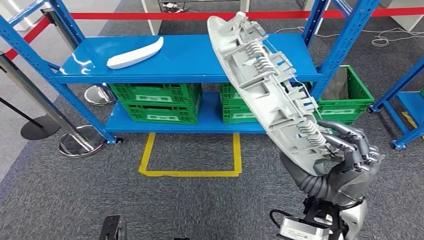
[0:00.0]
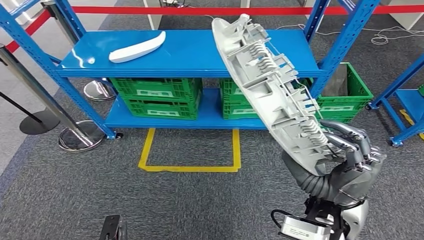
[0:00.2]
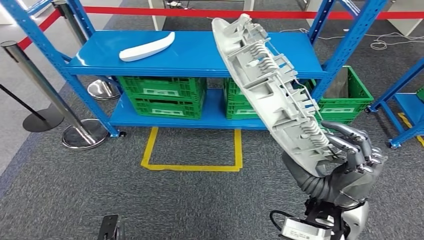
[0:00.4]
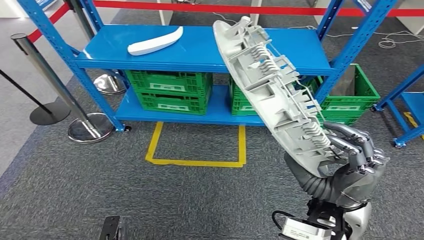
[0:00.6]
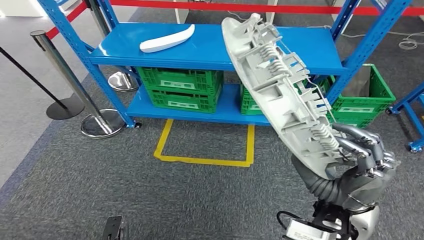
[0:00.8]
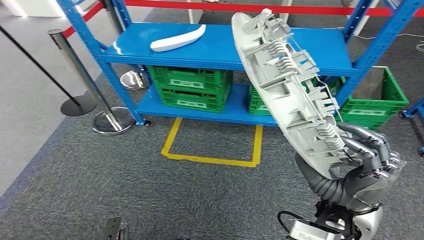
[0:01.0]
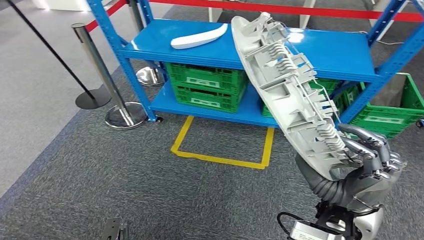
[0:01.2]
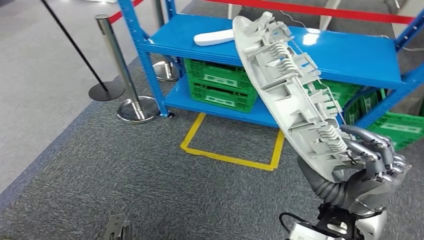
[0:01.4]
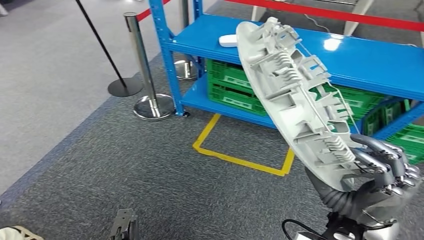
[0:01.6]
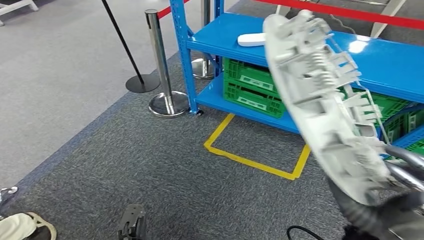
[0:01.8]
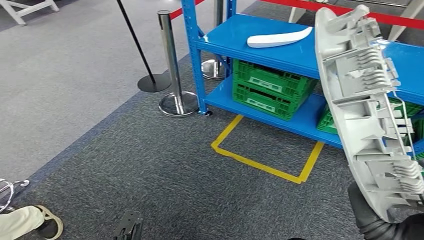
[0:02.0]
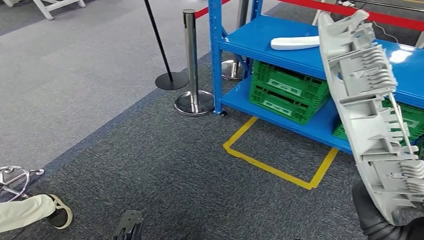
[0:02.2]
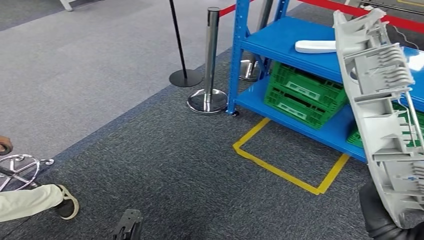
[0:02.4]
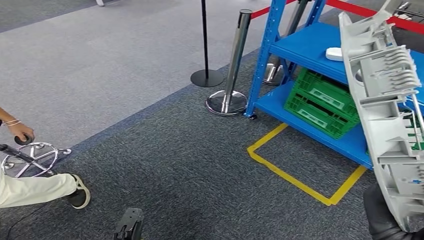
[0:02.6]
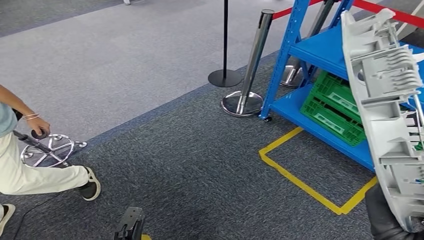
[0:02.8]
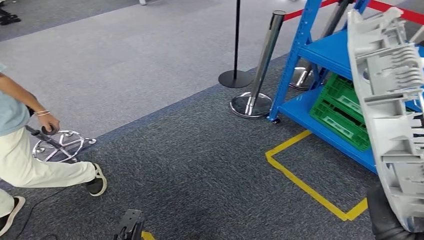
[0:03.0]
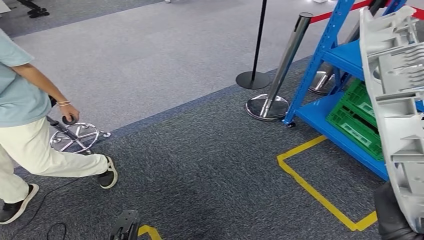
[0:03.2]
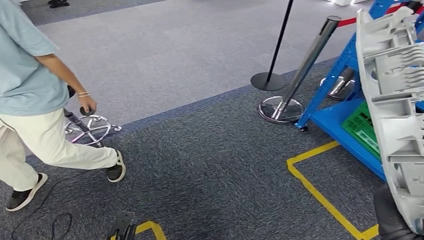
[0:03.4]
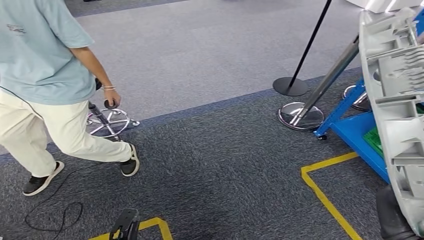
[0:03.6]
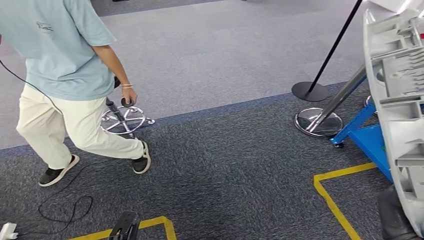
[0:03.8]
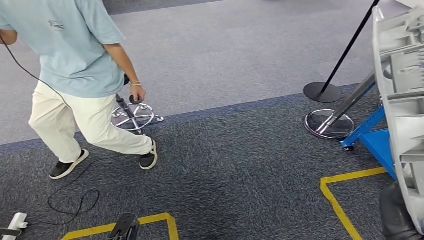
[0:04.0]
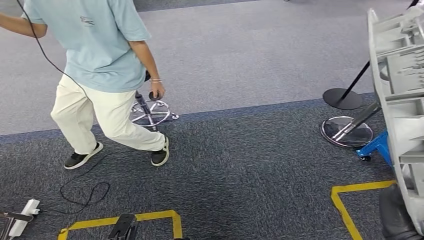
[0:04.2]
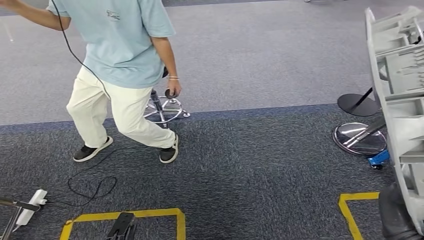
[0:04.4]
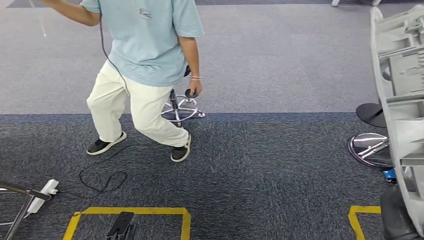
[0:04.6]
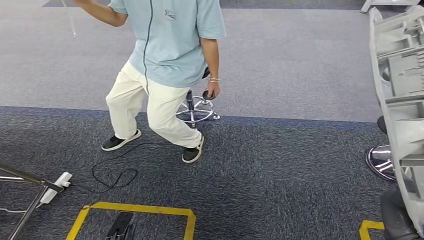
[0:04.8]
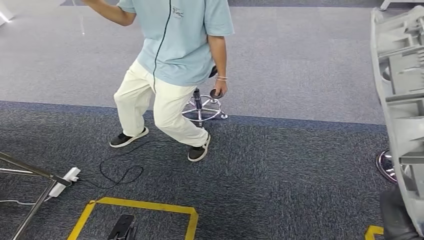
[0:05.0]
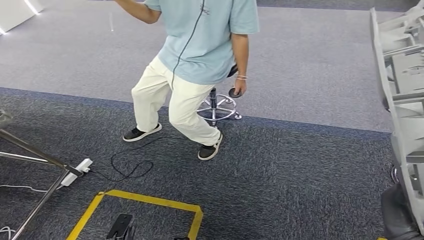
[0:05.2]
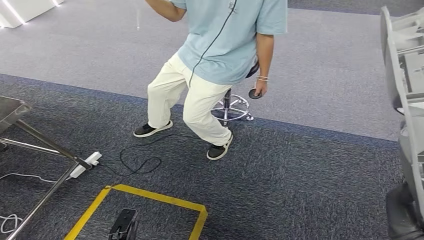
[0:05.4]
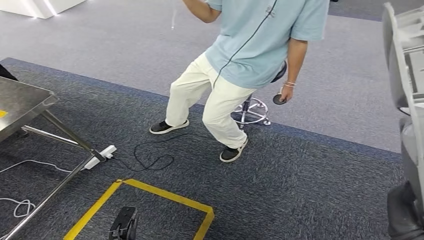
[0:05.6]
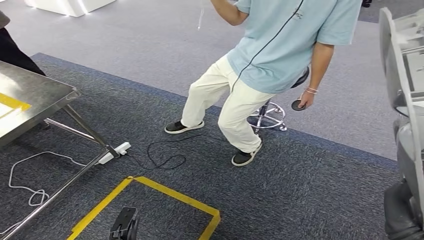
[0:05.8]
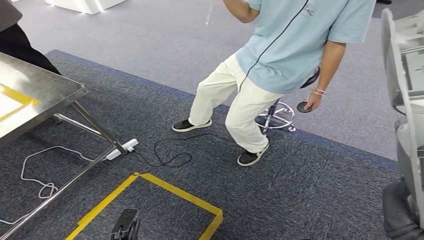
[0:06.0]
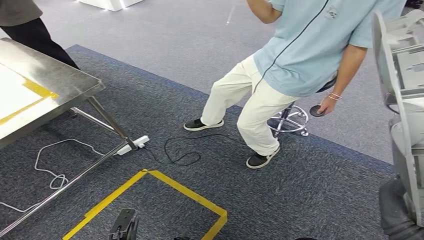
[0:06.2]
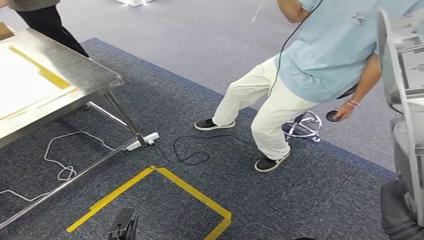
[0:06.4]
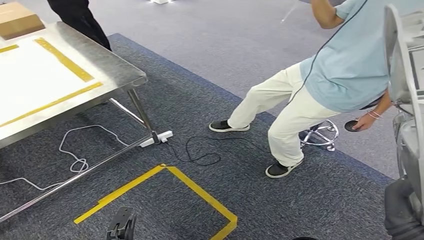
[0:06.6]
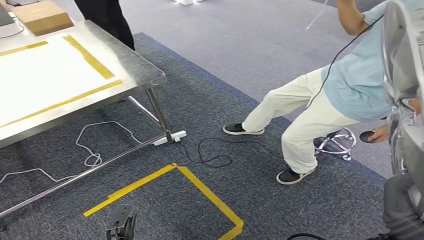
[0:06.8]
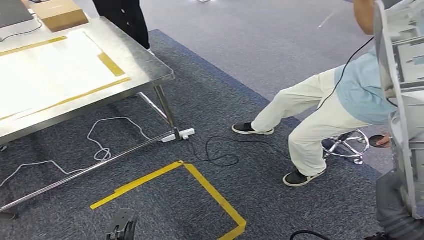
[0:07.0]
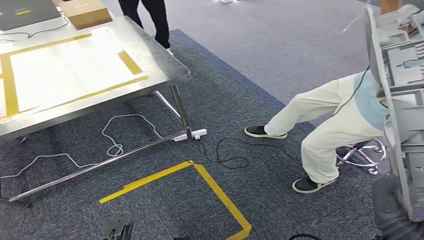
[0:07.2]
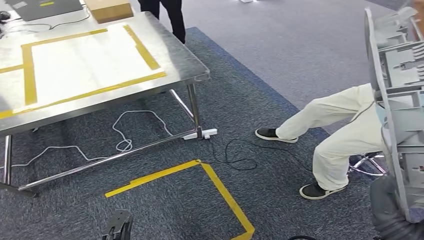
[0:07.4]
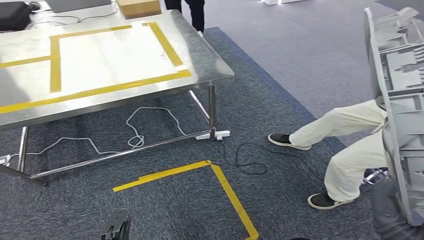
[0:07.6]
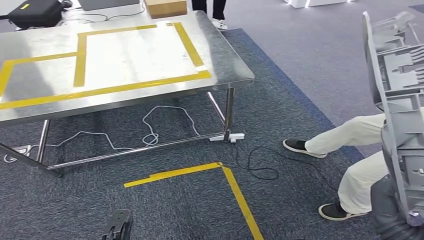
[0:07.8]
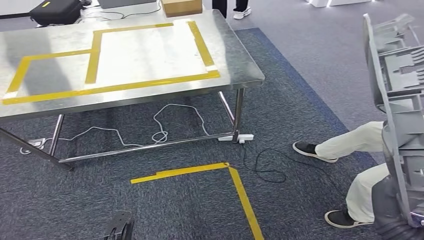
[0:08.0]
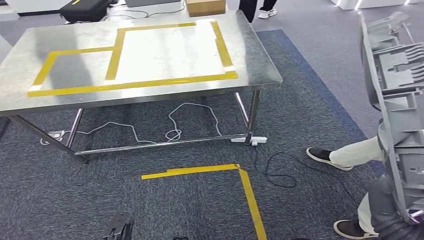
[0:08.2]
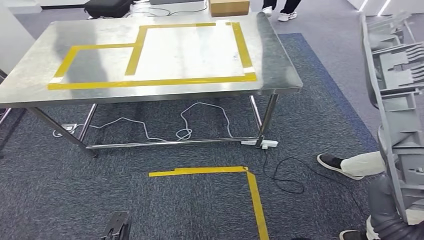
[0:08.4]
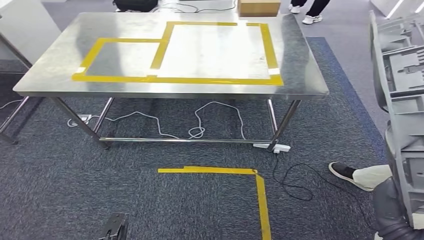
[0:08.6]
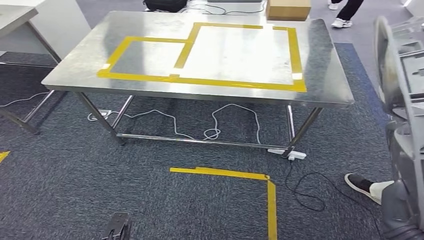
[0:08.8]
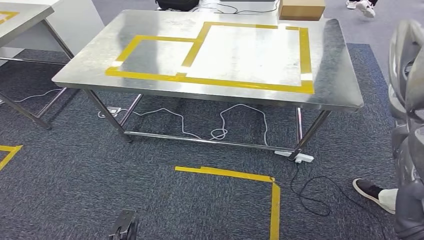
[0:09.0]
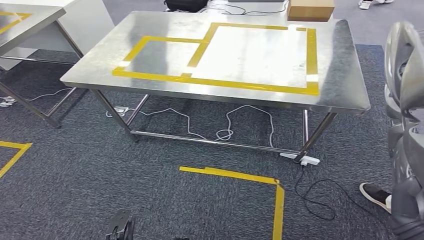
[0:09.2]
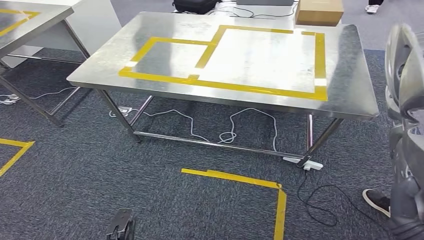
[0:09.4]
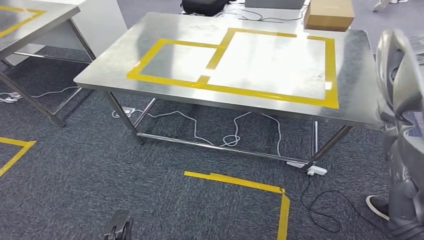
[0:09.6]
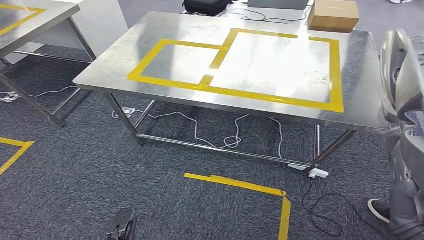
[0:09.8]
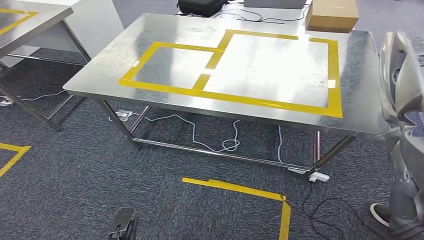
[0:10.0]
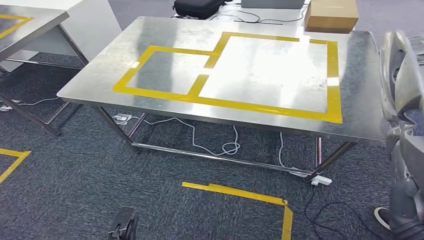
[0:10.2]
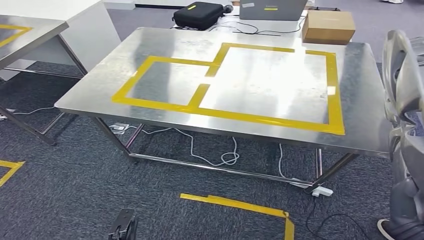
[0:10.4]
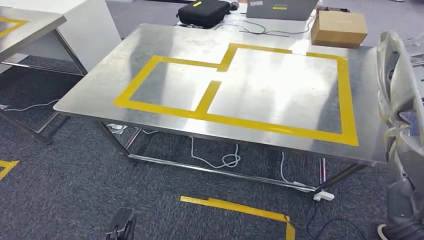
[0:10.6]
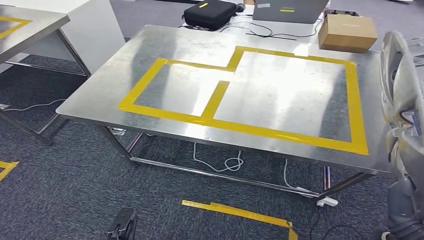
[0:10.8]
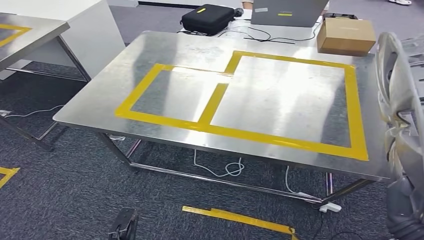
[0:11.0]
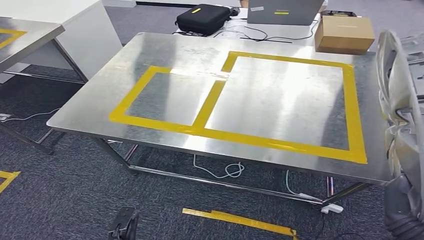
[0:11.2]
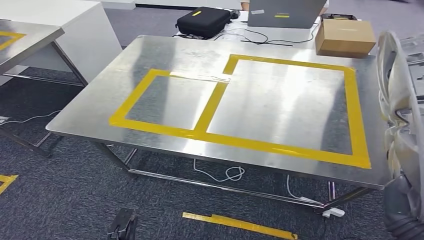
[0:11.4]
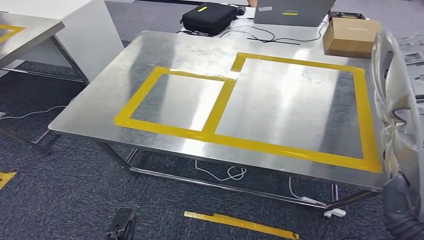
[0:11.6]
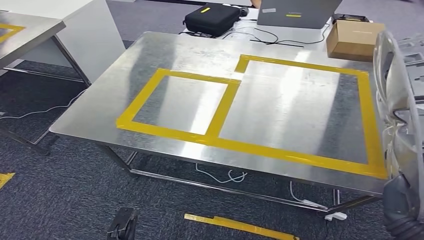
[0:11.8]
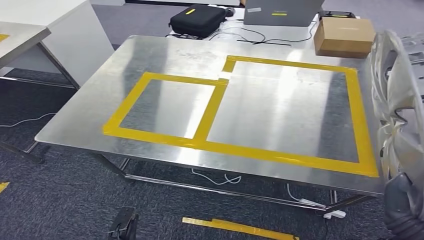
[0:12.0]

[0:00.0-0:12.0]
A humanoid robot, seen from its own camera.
Step, 0.0 to 9.4 s: Move the small parts to the workbench.

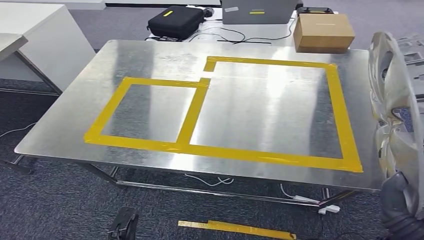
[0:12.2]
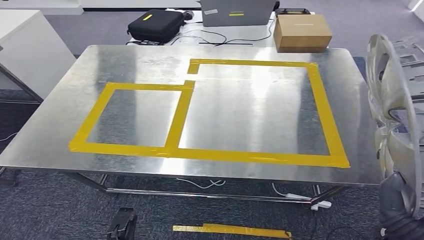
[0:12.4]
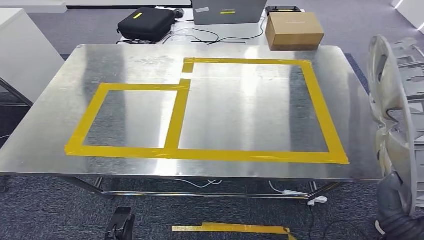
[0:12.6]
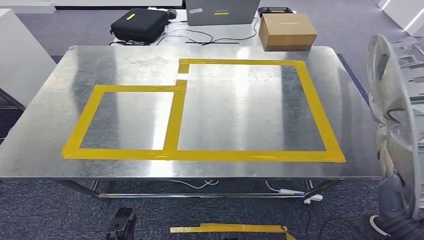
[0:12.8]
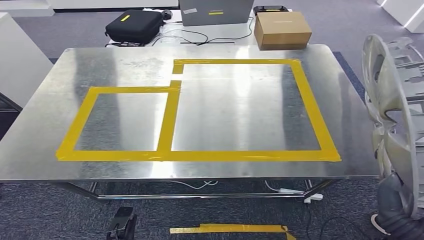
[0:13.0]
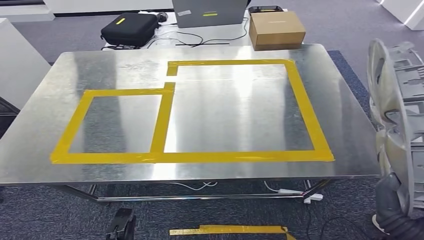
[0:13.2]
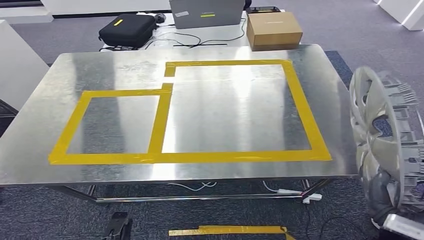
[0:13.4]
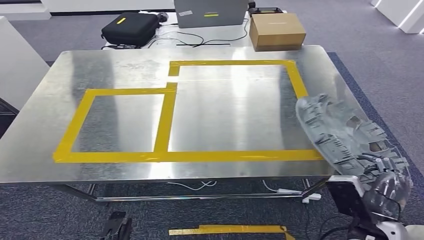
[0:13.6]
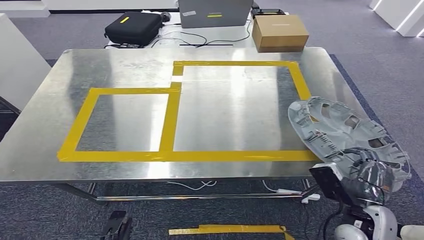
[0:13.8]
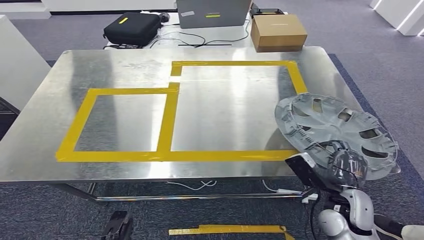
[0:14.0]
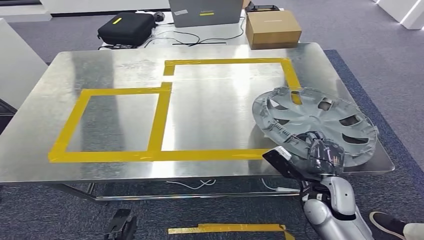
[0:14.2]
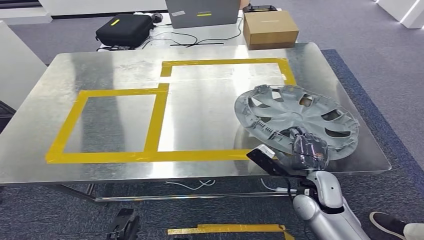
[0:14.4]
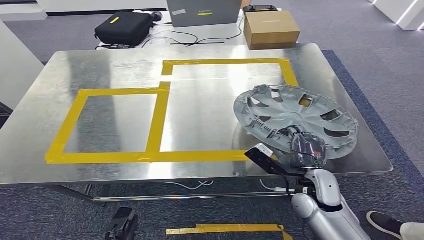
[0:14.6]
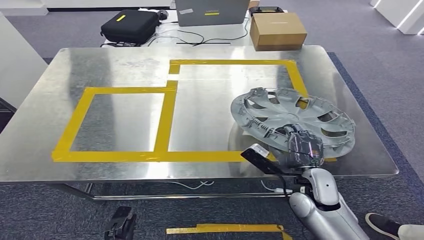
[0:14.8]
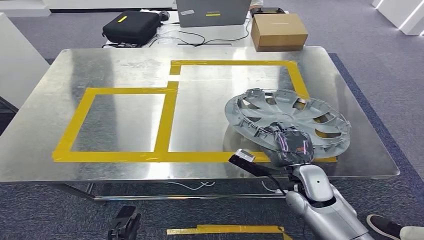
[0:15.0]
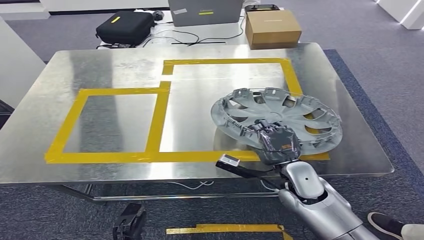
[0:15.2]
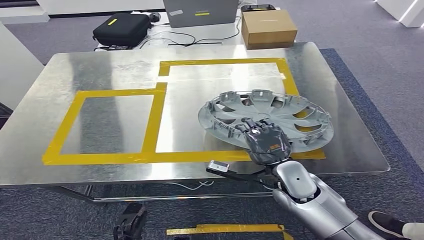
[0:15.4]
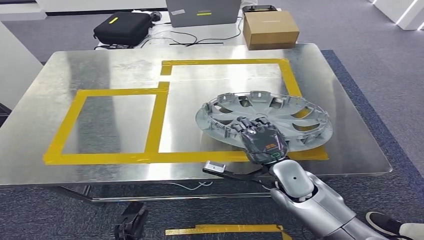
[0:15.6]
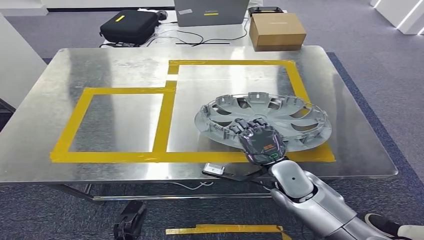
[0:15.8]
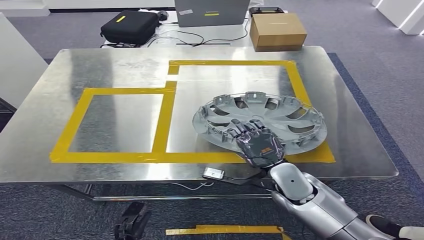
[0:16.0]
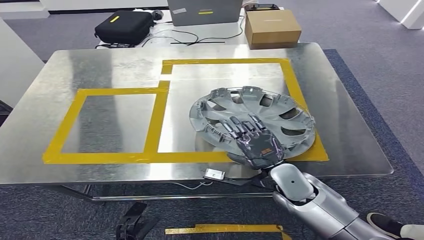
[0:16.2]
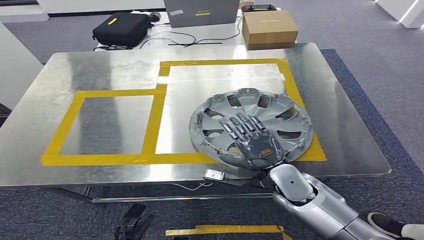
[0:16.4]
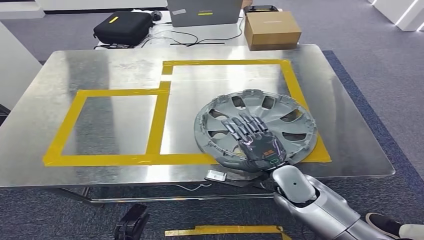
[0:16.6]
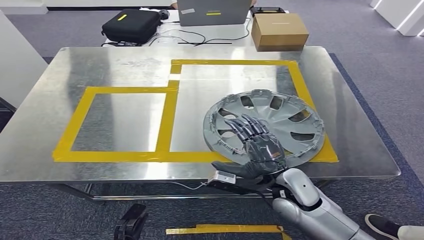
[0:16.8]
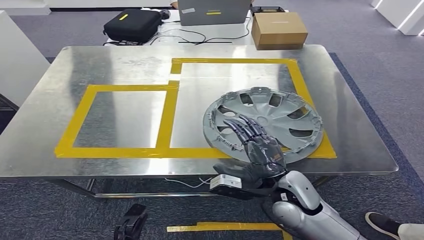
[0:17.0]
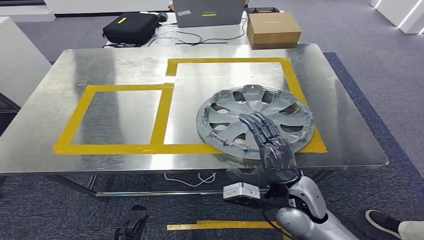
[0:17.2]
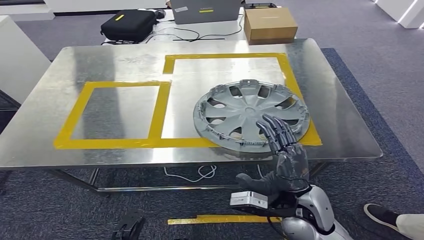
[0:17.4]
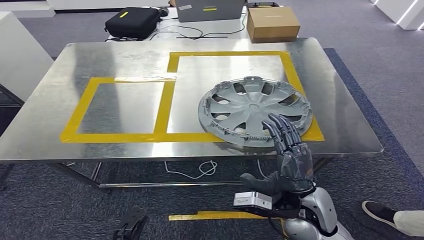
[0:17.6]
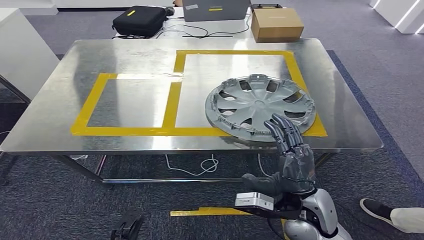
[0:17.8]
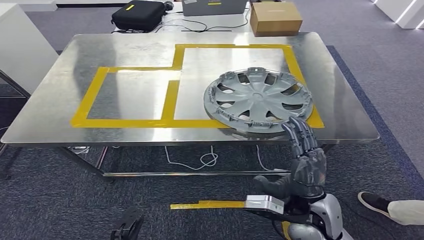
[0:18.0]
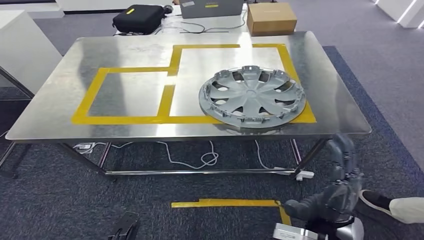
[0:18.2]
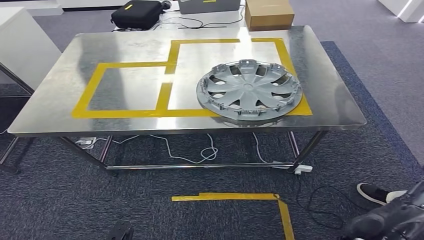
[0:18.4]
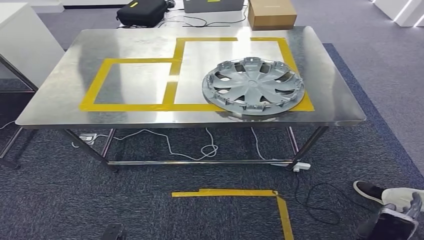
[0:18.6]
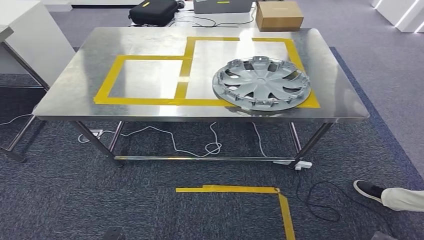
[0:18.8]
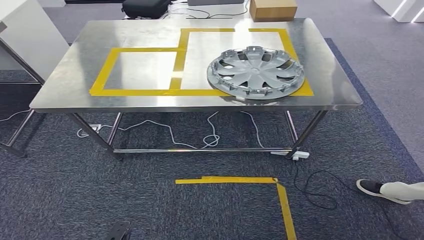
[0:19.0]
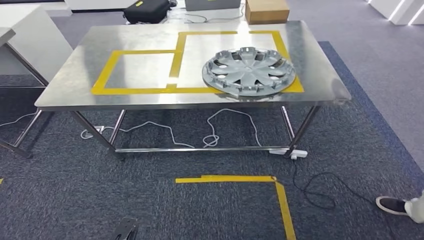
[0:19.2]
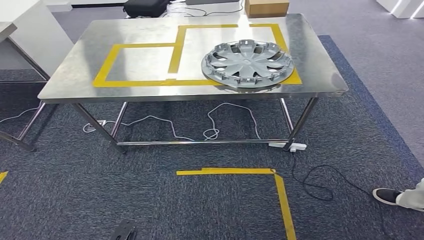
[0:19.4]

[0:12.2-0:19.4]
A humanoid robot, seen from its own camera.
Step, 12.2 to 17.8 s: Insert the small parts into the corresponding holes on the workbench.
13.6 to 15.0 s: The right hand is displaced forward and to the left by approximately 15 cm.
